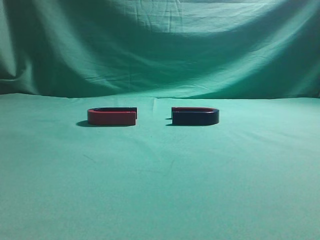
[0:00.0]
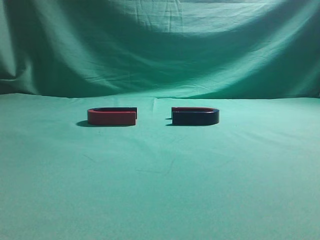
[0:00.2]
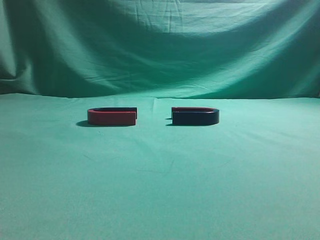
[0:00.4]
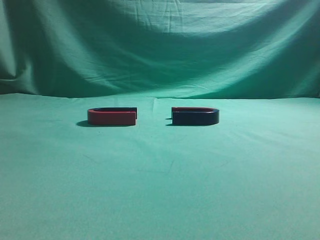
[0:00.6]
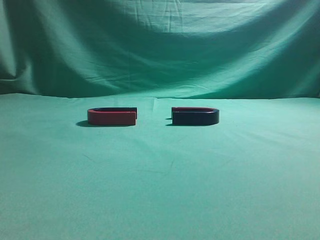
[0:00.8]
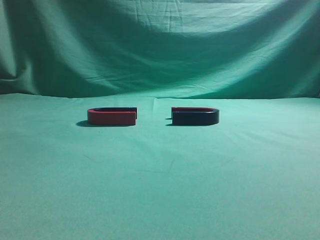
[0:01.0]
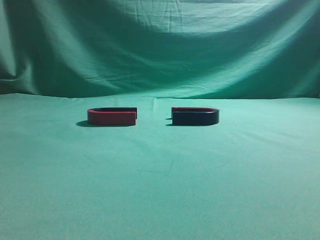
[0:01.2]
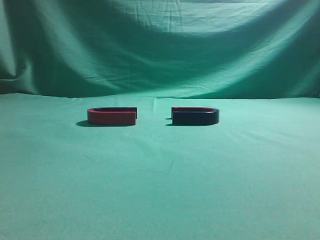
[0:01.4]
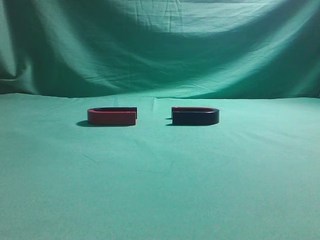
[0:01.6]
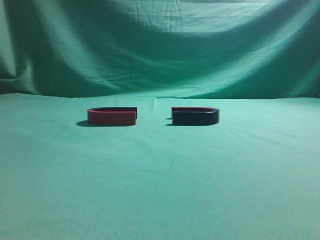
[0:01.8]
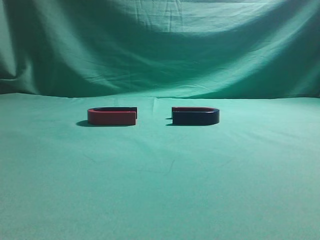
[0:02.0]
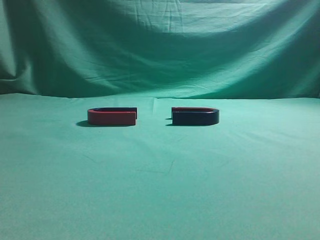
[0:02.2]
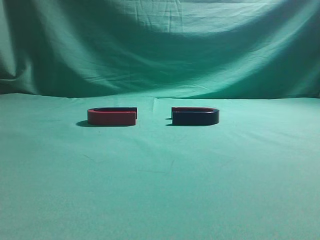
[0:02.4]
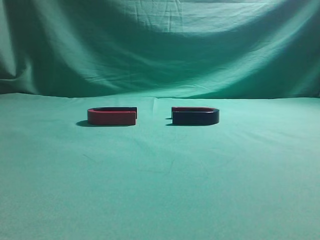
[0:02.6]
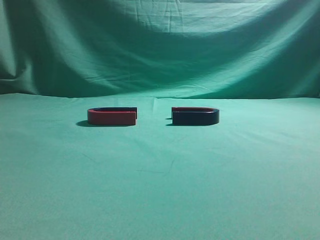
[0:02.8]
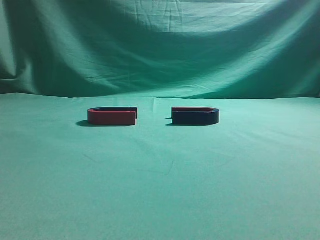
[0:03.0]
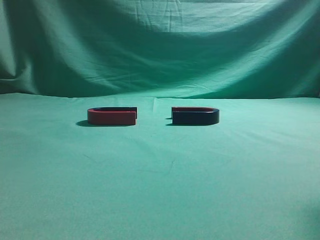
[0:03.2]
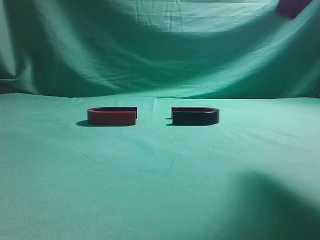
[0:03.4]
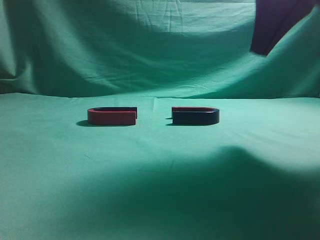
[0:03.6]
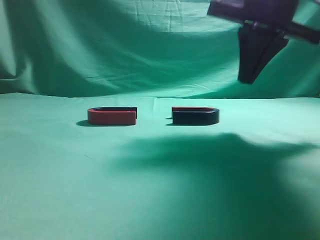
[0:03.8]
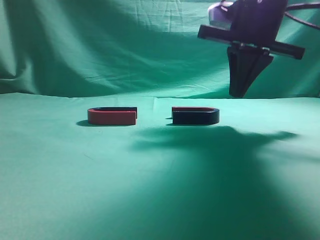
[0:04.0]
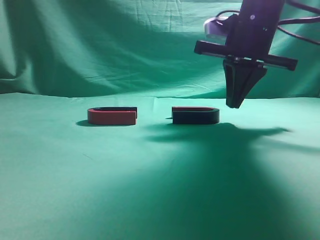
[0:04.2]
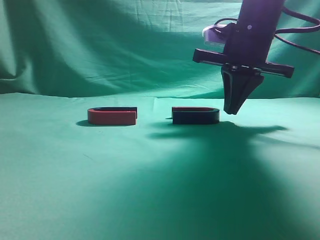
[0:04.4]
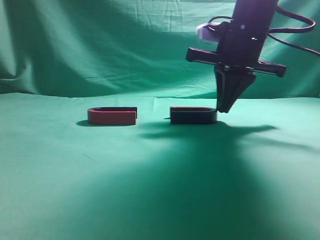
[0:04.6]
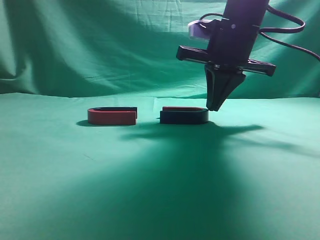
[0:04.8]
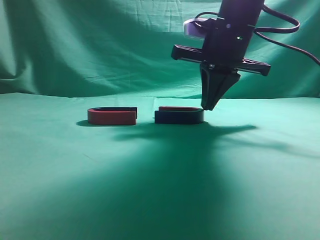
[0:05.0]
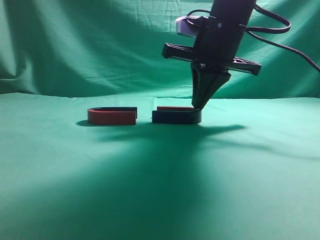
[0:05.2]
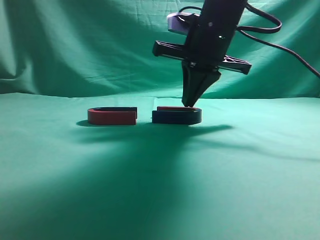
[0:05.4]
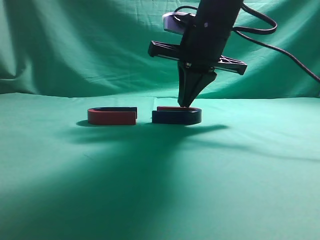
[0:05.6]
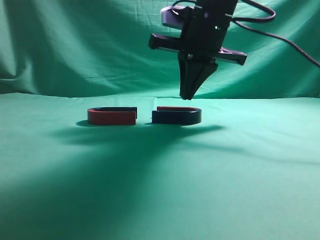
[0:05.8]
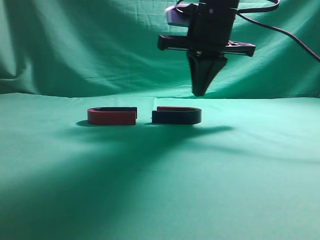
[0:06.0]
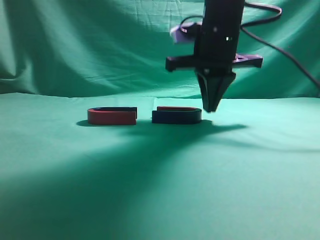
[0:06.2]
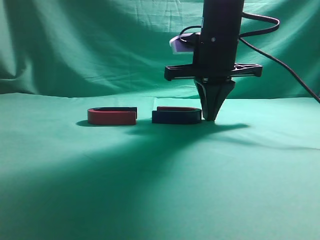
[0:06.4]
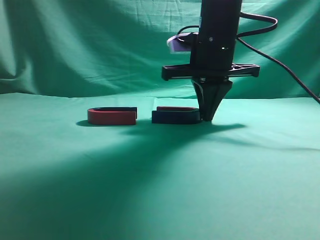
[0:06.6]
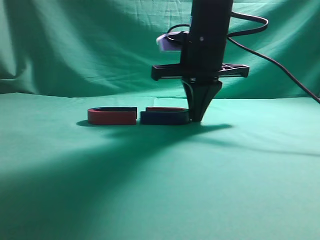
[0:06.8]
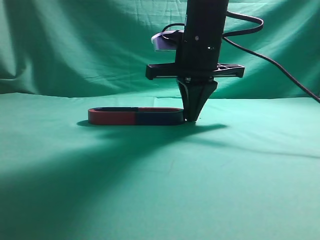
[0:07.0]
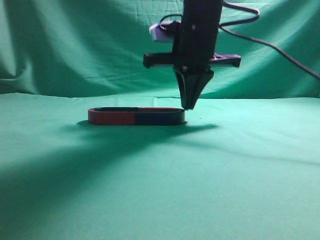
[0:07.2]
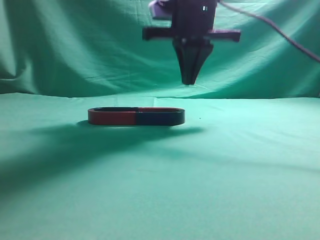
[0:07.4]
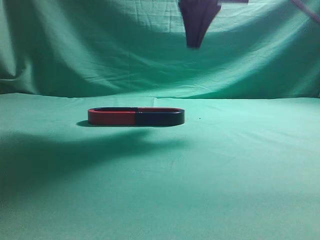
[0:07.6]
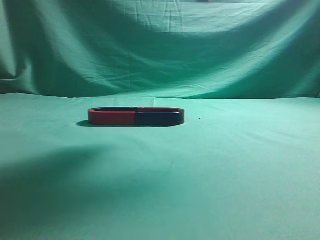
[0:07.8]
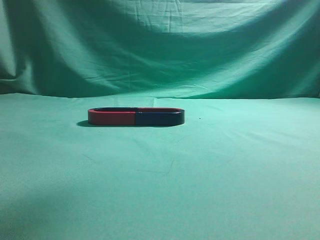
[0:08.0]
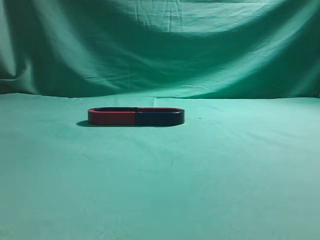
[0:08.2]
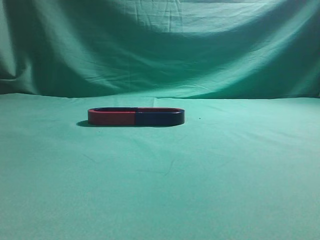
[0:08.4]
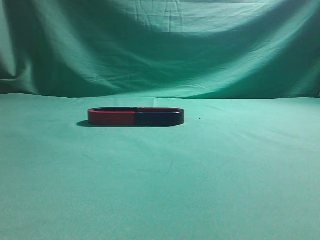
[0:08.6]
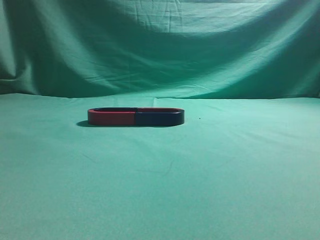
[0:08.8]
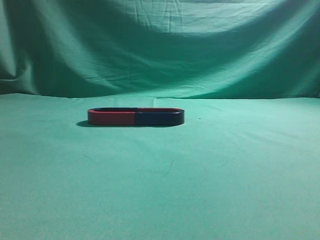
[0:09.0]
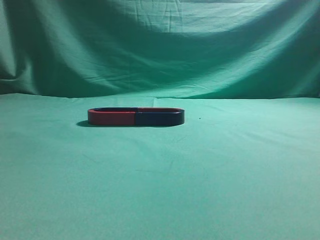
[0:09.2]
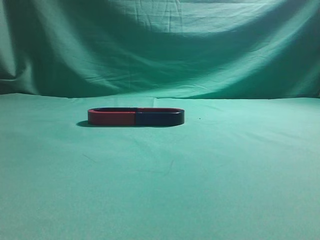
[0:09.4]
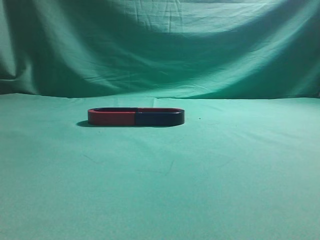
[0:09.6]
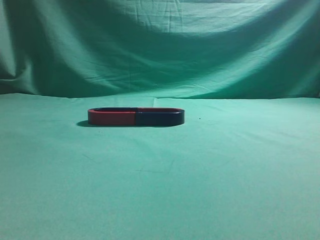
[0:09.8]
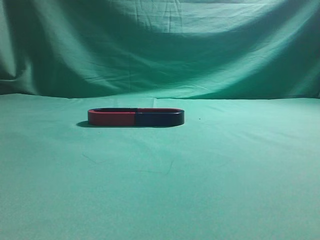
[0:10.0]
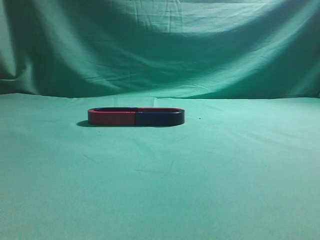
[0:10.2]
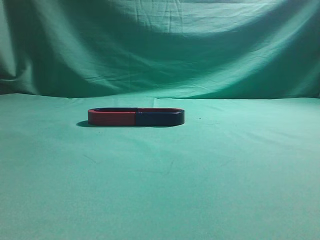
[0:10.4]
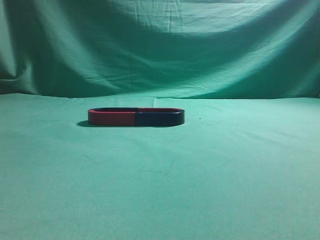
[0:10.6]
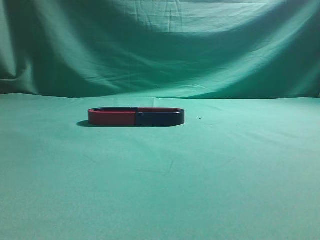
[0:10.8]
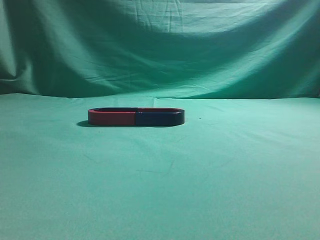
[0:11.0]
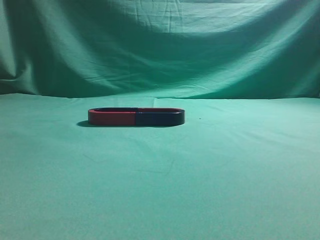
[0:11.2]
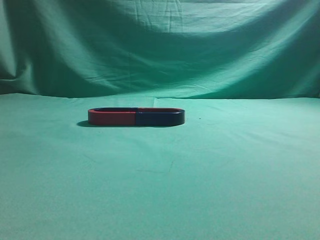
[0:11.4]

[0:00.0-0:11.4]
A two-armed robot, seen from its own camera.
Task of the whole recording: push the magnet on the table from its original position to another position.
Step, 0:00.0 to 0:07.2: Push the magnet on the right to connect the magnet on the left.
0:02.8 to 0:04.2: The right gripper goes roughly 30 cm forward, downward and to the left.
0:04.2 to 0:05.6: The right gripper heads to the left, covering some 5 cm.
0:07.2 to 0:08.6: The right gripper travels backward, upward and to the right by some 35 cm.
